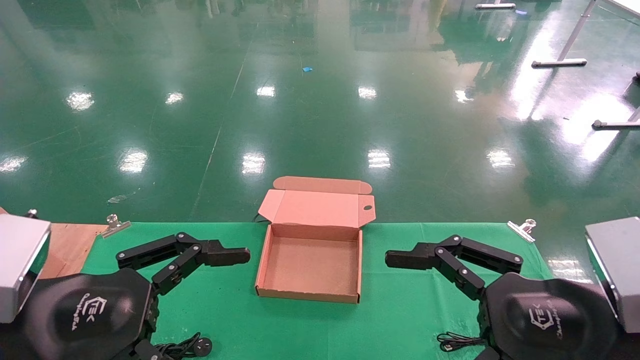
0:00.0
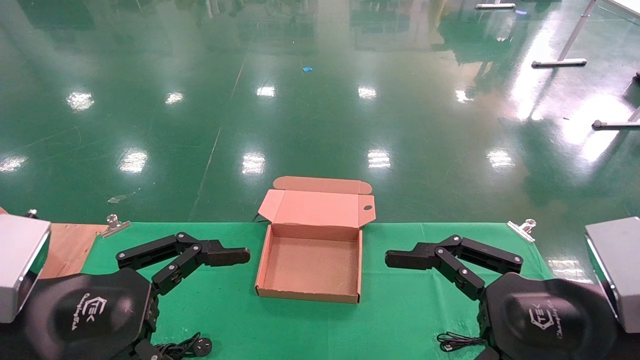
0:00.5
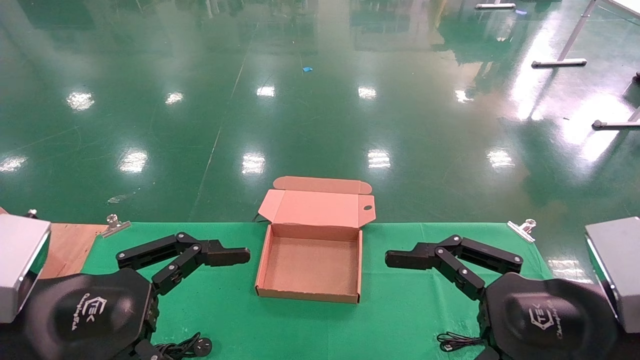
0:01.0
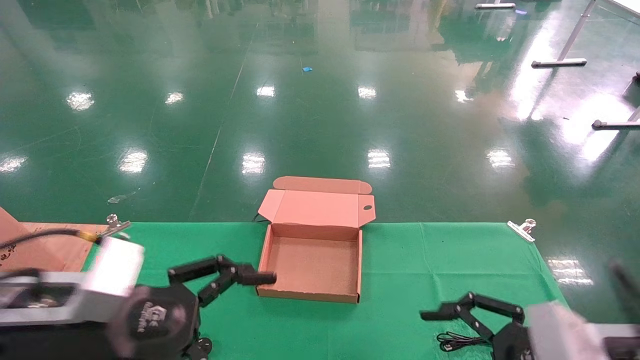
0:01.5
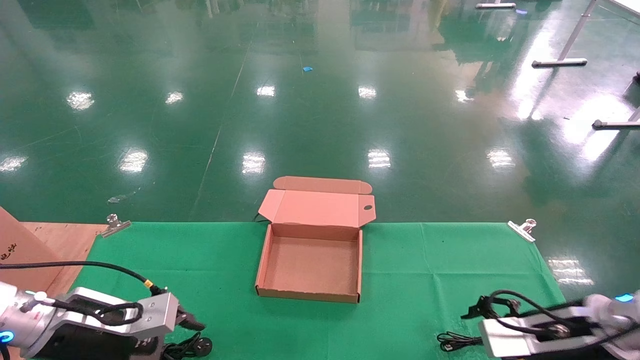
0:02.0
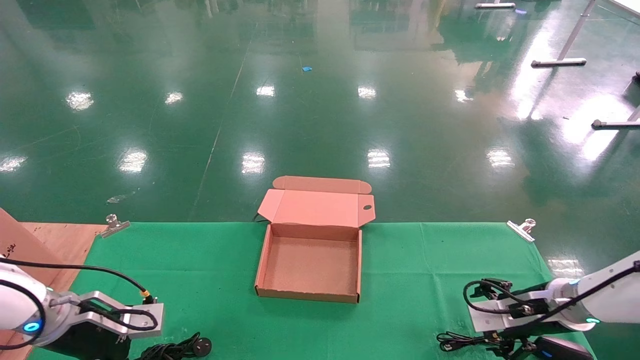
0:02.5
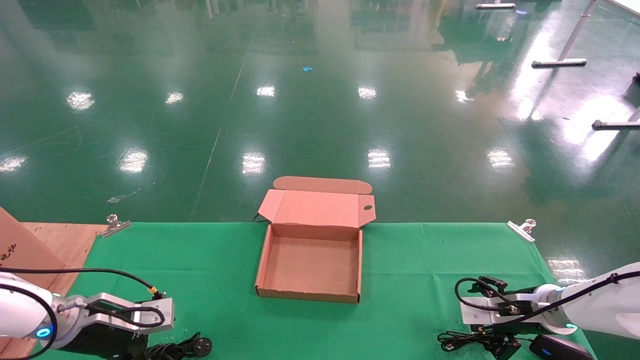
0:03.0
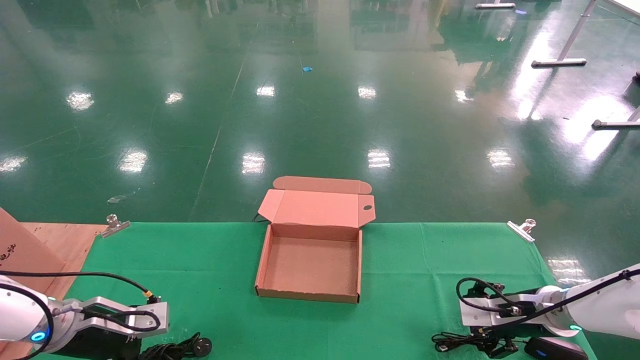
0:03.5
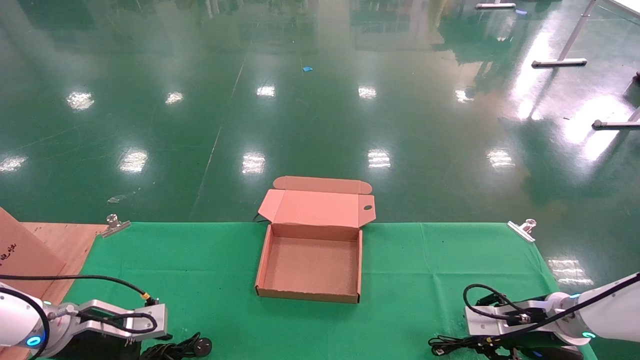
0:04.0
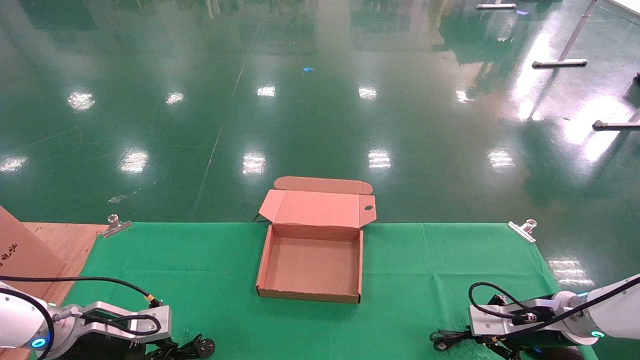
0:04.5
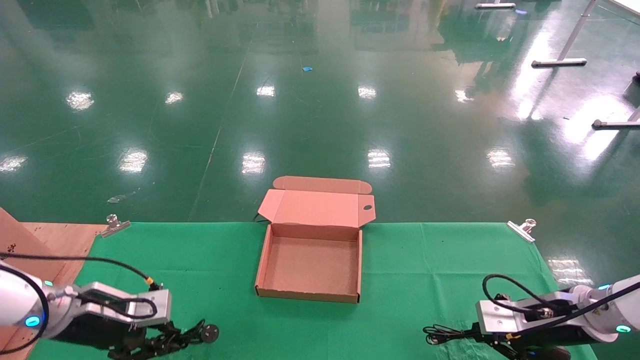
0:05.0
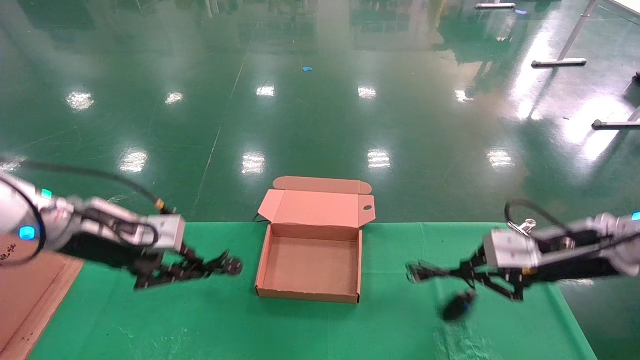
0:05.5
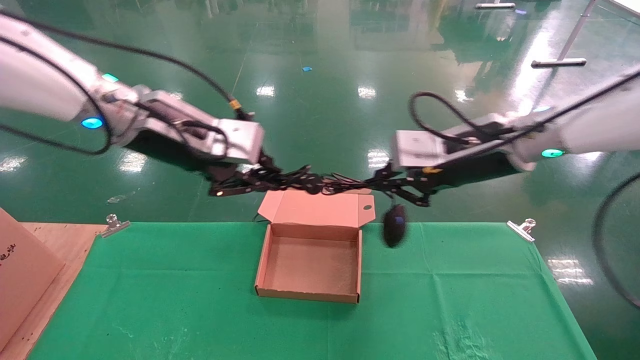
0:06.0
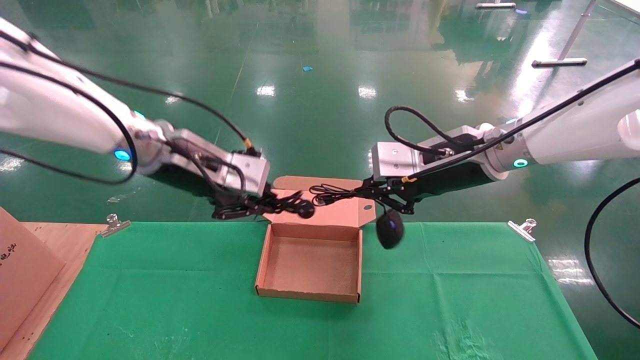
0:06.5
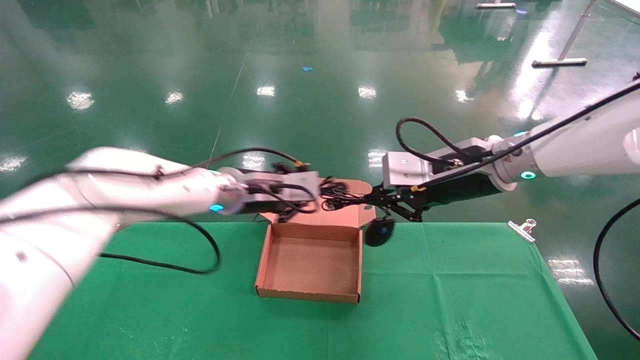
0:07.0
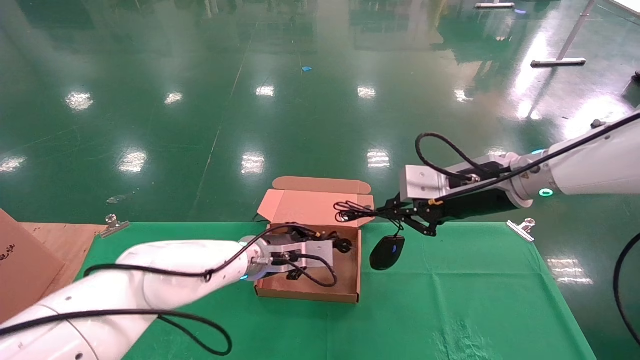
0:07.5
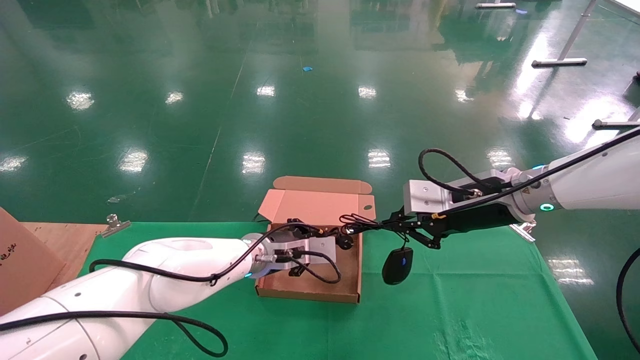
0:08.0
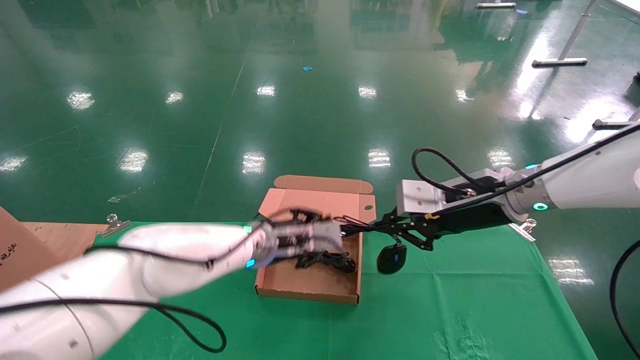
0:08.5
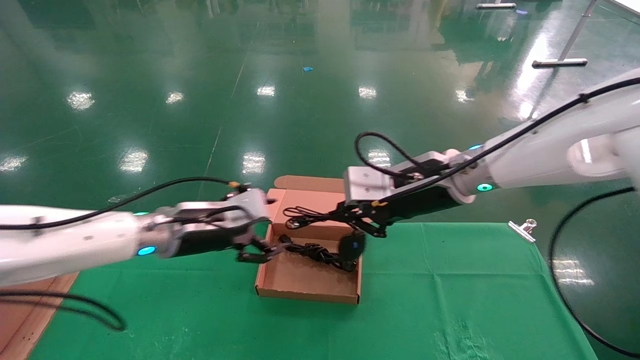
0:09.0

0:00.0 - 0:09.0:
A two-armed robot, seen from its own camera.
Step, 0:01.5 - 0:05.0: Grab and lift both the mouse and power cord from the accessory packaging area at the same time.
0:00.0 - 0:02.0: The right gripper moves forward, downward and to the right, approximately 20 cm, while the left gripper goes approximately 20 cm forward and downward.
0:02.0 - 0:04.5: The left gripper heads downward and forward, covering about 10 cm, and closes its fingers. Meanwhile the right gripper shifts about 5 cm forward, and closes.
0:04.5 - 0:07.0: The left gripper shifts roughly 30 cm to the right and upward. The right gripper shifts about 30 cm upward and to the left.
0:07.0 - 0:09.0: The right gripper goes about 5 cm to the left. Meanwhile the left gripper is displaced to the left and backward by roughly 10 cm, and opens its fingers.

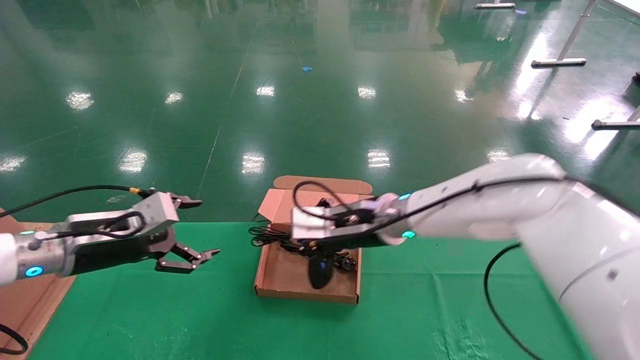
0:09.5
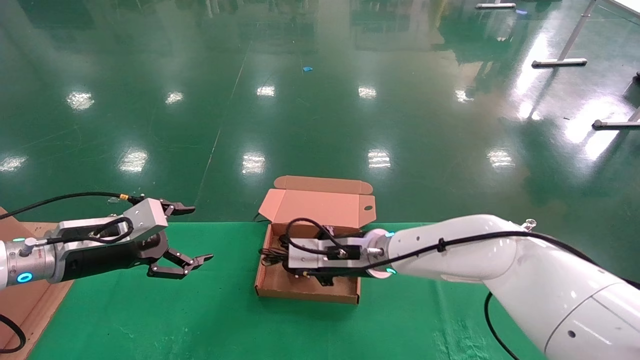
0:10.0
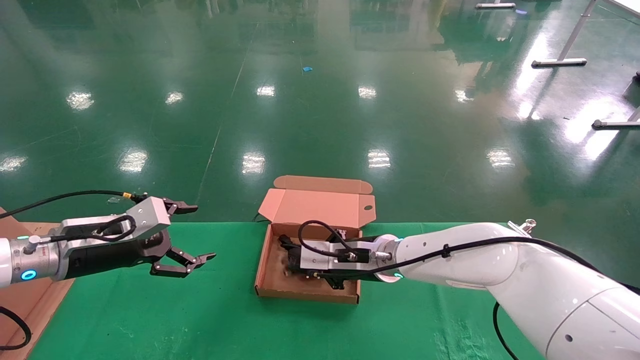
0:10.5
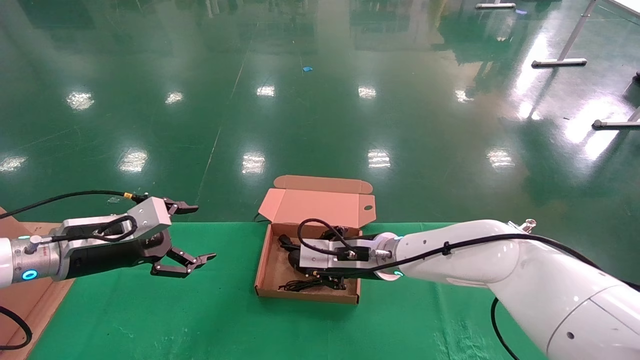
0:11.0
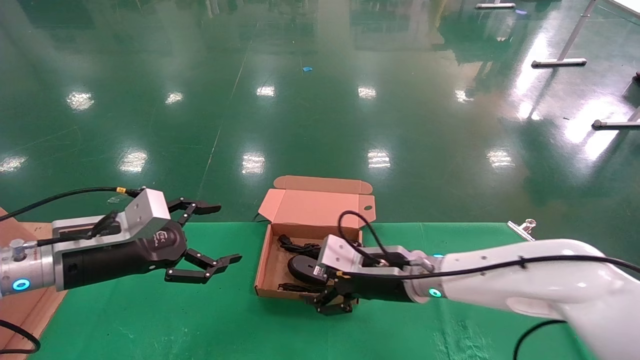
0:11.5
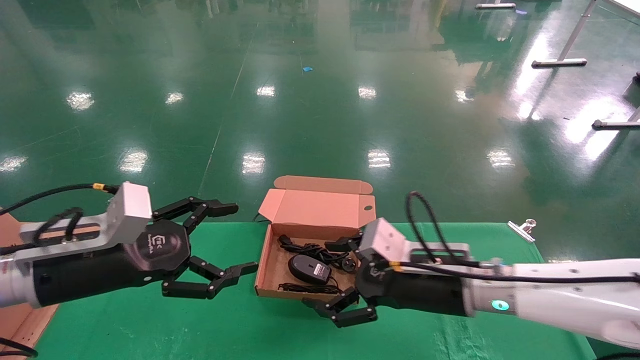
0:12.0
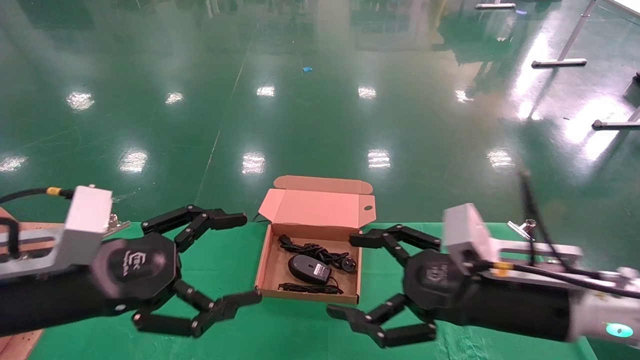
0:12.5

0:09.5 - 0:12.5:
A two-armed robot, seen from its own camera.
0:09.5 - 0:11.0: The right gripper goes about 10 cm downward.
0:11.0 - 0:12.5: The grippers both shift backward and to the right by about 20 cm. The right gripper opens its fingers.

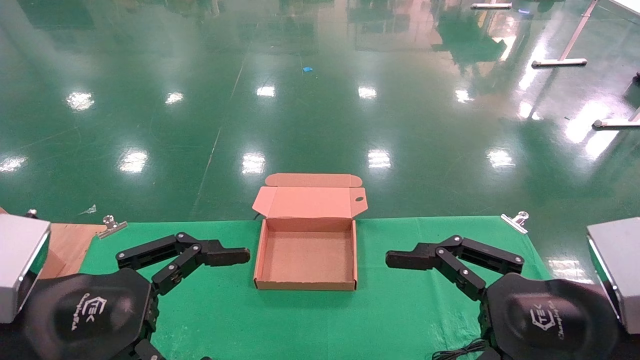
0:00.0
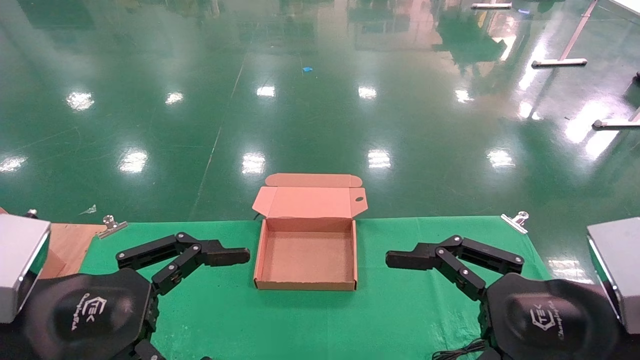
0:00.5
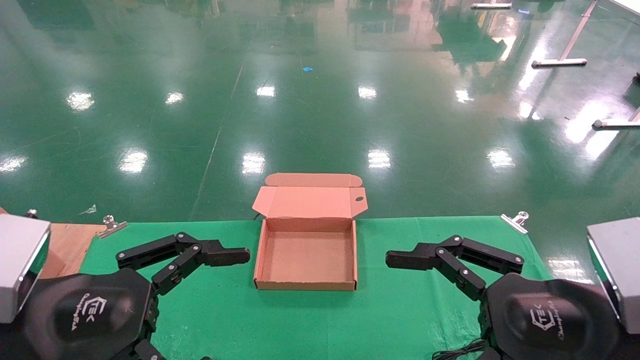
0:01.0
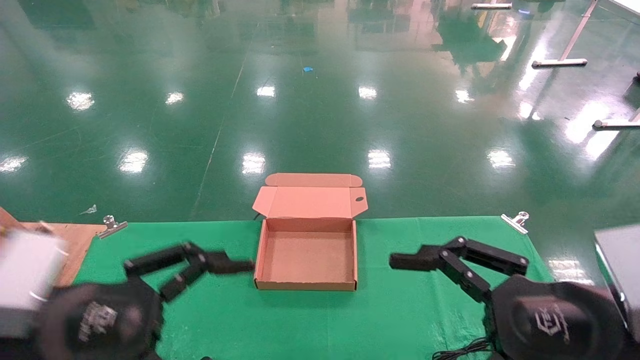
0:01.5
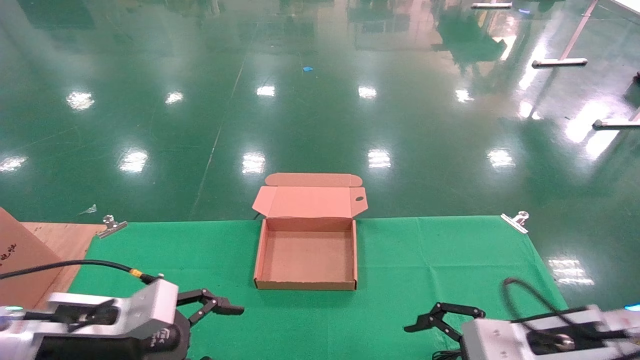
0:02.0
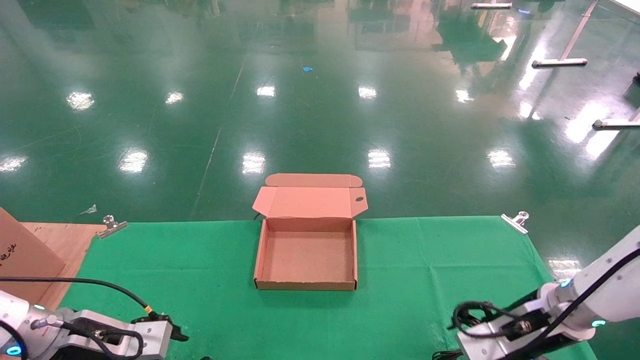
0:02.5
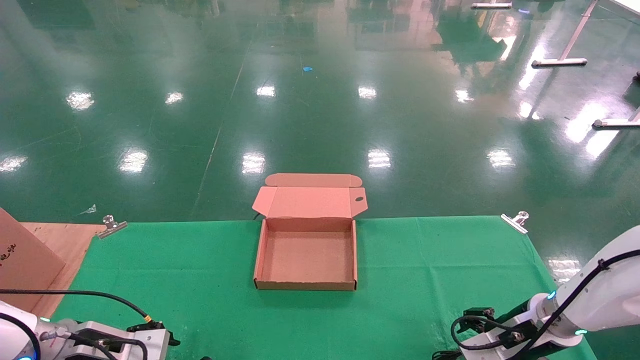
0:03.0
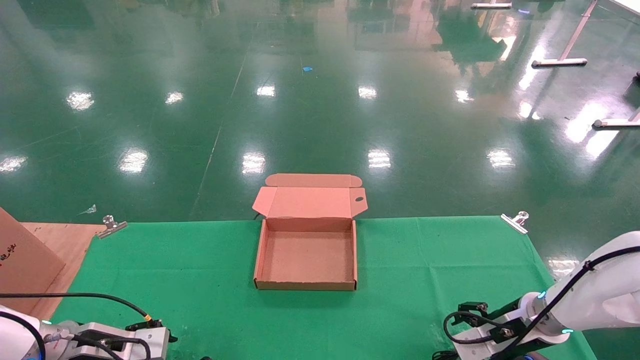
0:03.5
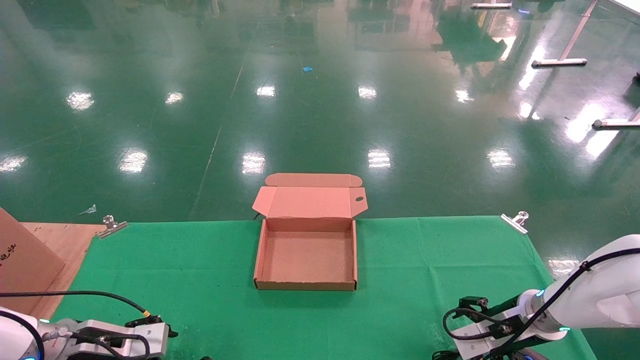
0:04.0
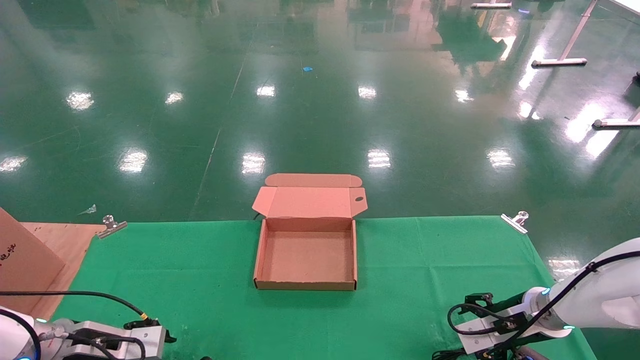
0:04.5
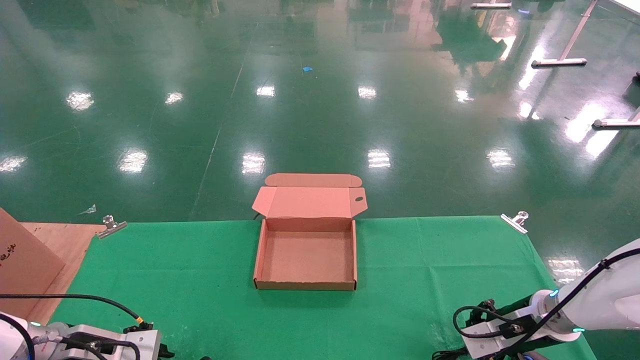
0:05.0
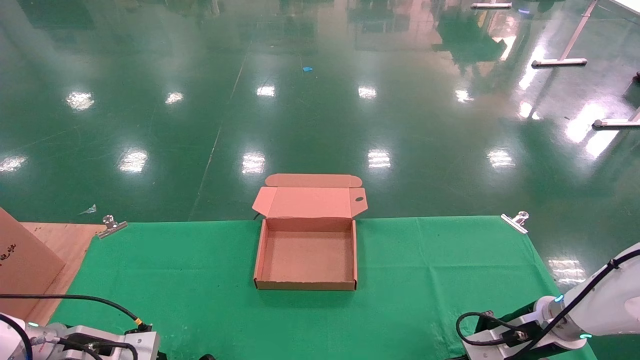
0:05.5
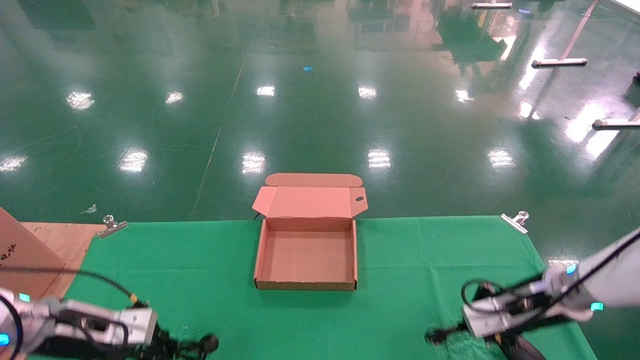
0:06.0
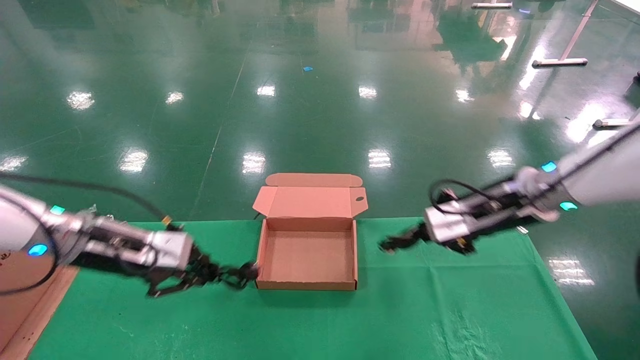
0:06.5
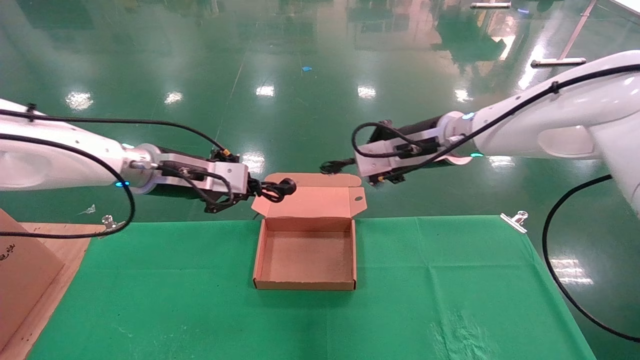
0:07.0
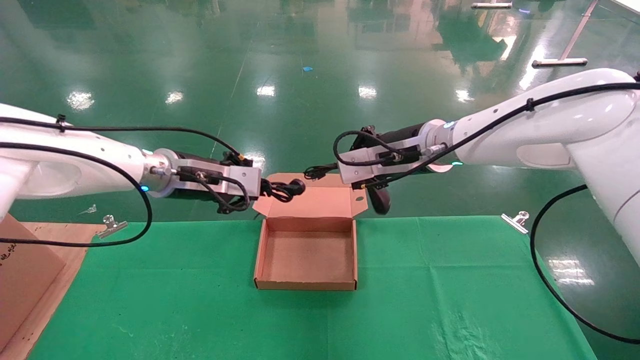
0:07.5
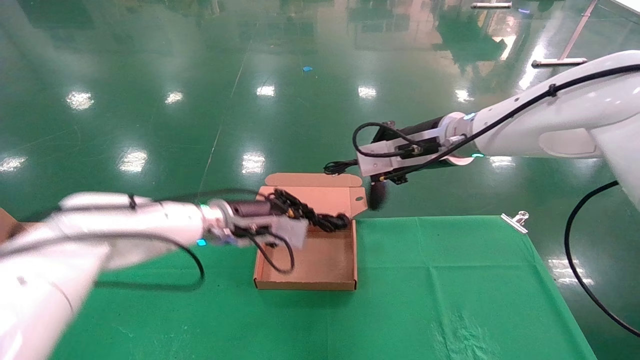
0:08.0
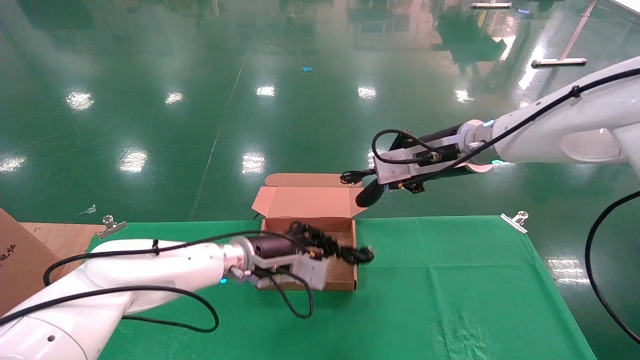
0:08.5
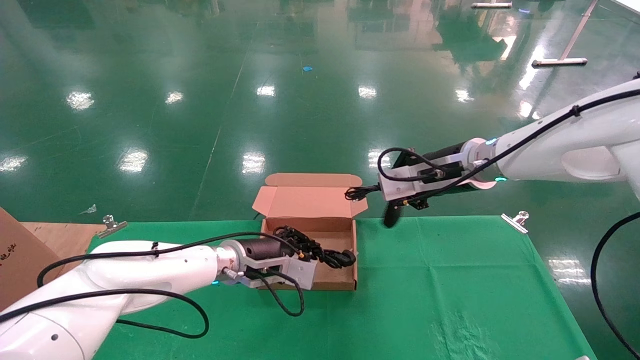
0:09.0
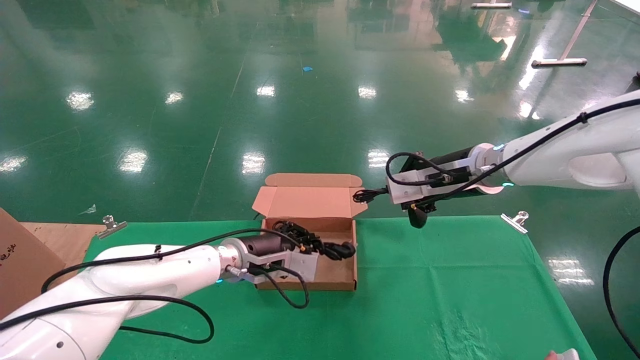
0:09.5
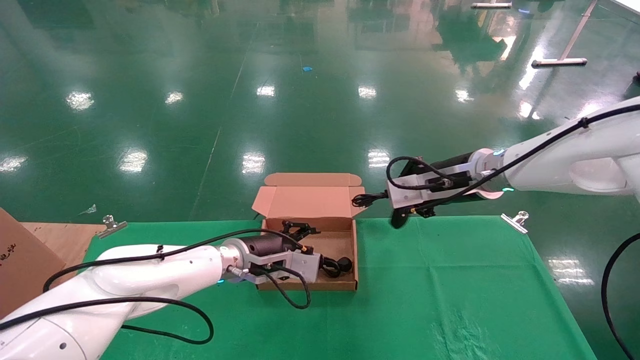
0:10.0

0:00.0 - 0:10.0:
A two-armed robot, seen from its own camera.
Step, 0:02.5 - 0:06.5: Grab and lift both the mouse and power cord from the accessory packaging area at the same time.
0:00.0 - 0:02.0: The two grippers go about 15 cm forward and downward.
0:02.0 - 0:04.0: The left gripper is displaced downward, forward and to the left by roughly 15 cm, while the right gripper is displaced forward and downward by some 15 cm.
0:04.0 - 0:06.0: Both grippers move upward, approximately 5 cm. The left gripper closes its fingers; the right gripper closes up.
0:06.0 - 0:08.0: The left gripper moves to the right, forward and upward, some 25 cm, while the right gripper travels upward and to the left by some 25 cm.
0:08.0 - 0:10.0: The right gripper ends up roughly 5 cm from where it was. Meanwhile the left gripper is displaced downward by about 5 cm.
